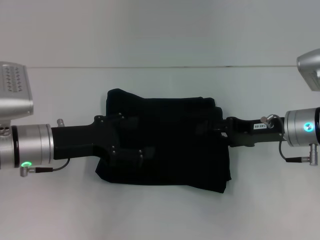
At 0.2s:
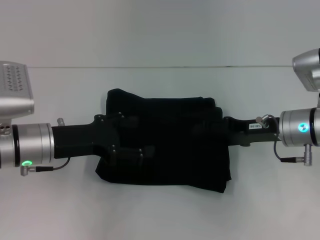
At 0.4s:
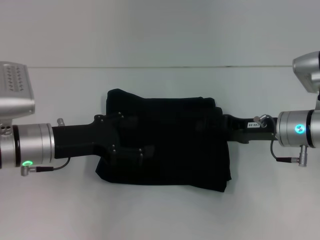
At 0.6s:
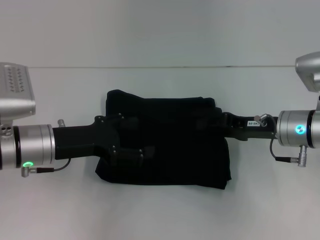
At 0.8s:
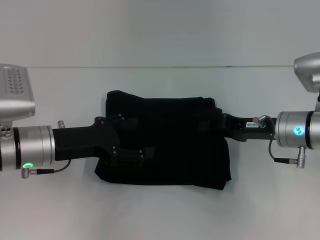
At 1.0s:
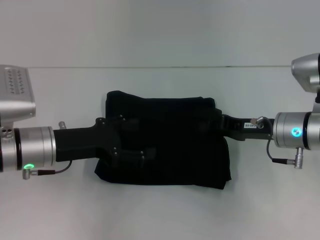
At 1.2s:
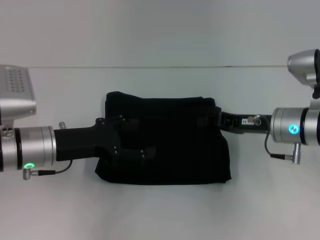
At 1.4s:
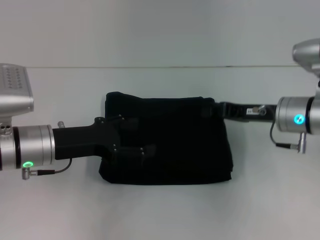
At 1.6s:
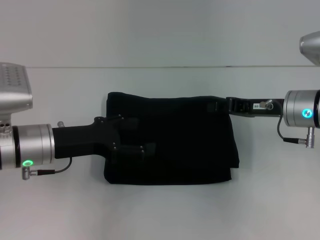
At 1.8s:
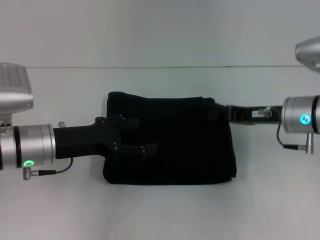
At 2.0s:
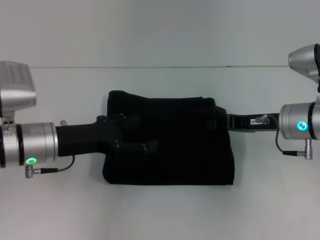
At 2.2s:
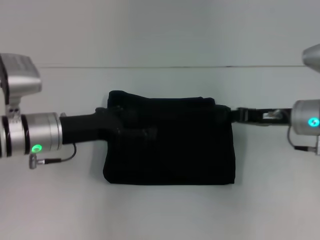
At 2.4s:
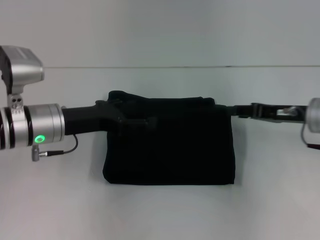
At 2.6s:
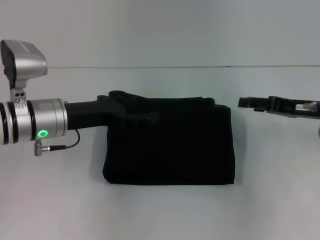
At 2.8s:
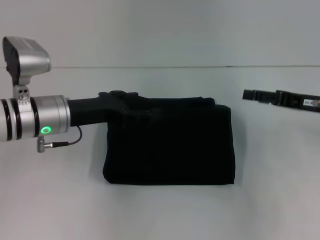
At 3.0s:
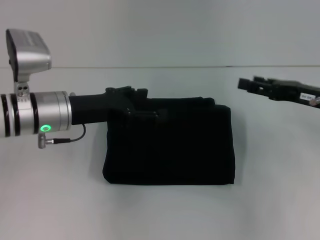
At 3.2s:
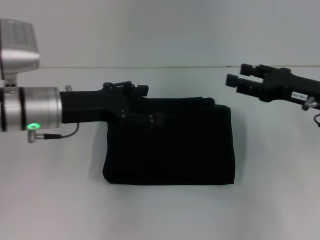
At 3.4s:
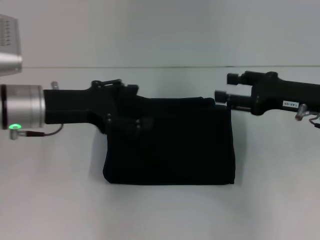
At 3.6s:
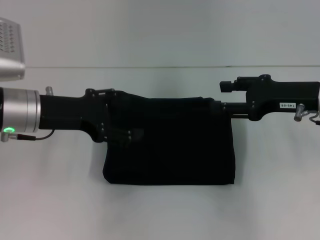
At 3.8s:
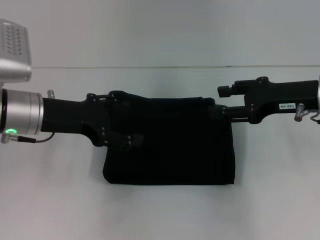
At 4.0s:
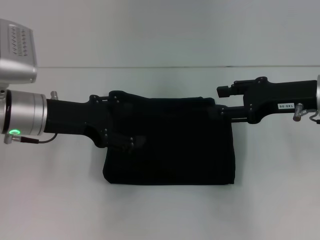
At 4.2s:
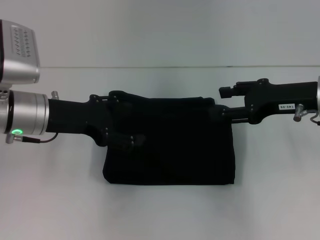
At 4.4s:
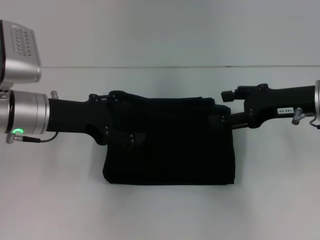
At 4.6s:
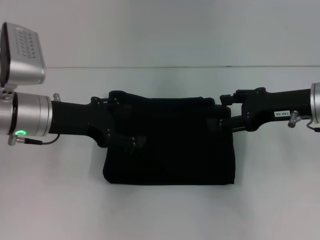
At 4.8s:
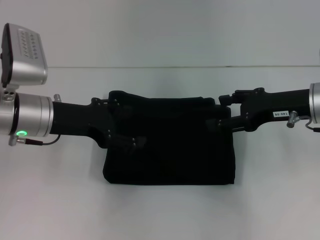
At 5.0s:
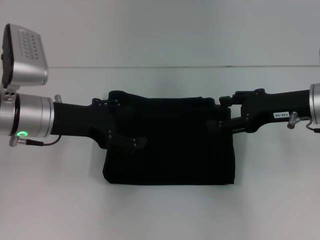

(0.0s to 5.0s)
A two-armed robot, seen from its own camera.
0.0s - 1.6s: The right gripper closes up.
1.6s - 3.4s: The right gripper changes place by approximately 5 cm, and opens up. Meanwhile the left gripper goes approximately 5 cm upward.
3.4s - 5.0s: There are only small adjustments of the grippers.

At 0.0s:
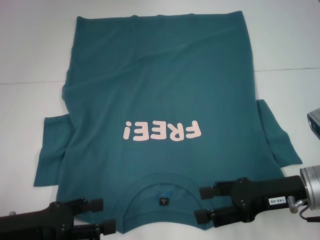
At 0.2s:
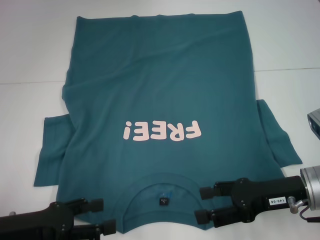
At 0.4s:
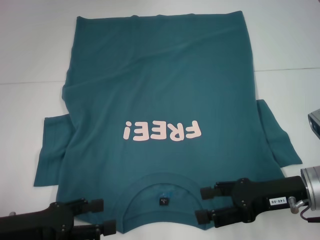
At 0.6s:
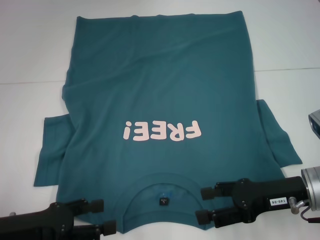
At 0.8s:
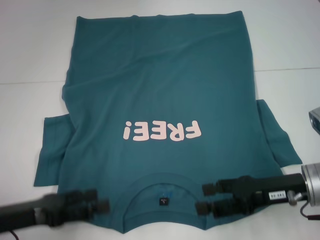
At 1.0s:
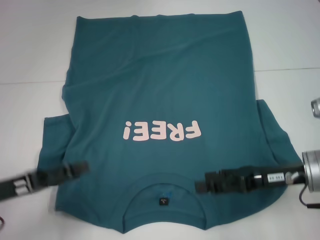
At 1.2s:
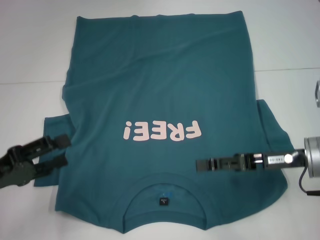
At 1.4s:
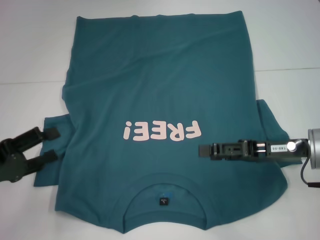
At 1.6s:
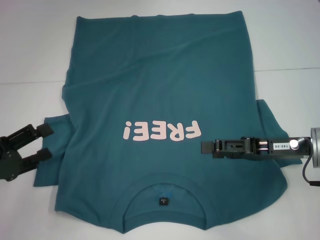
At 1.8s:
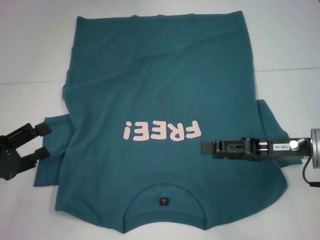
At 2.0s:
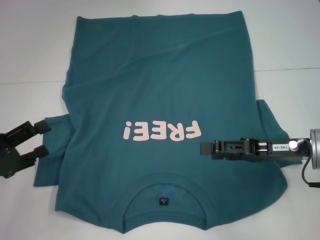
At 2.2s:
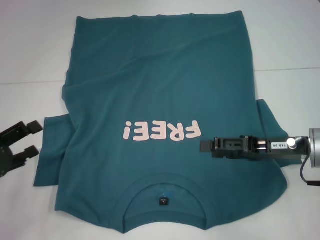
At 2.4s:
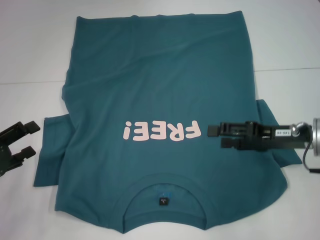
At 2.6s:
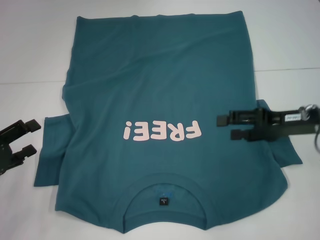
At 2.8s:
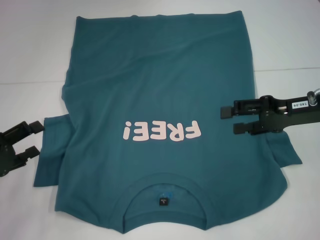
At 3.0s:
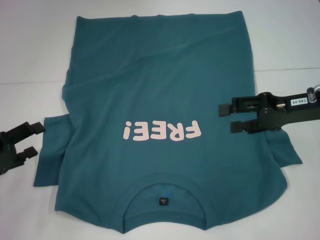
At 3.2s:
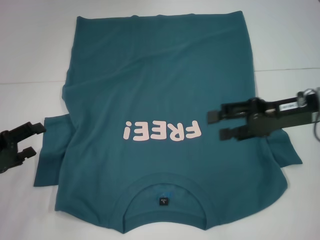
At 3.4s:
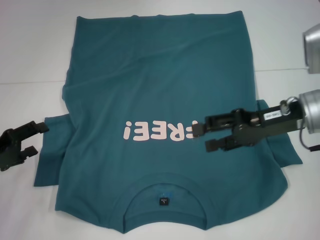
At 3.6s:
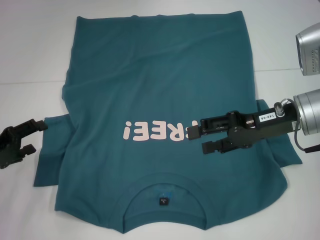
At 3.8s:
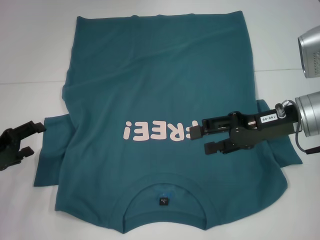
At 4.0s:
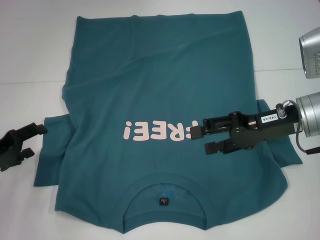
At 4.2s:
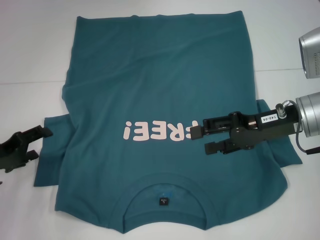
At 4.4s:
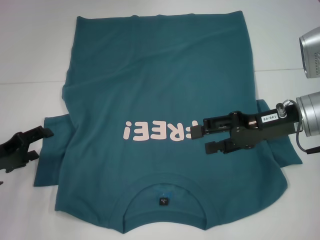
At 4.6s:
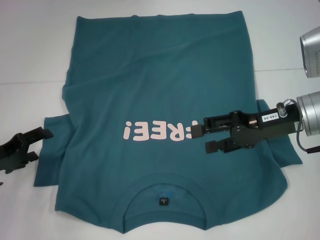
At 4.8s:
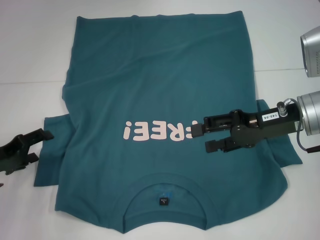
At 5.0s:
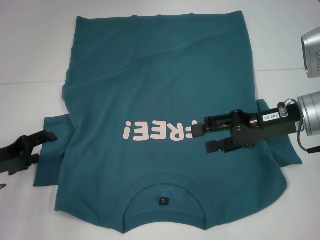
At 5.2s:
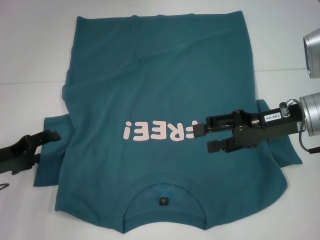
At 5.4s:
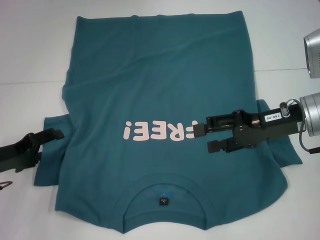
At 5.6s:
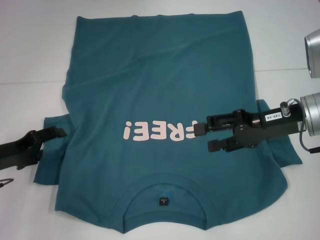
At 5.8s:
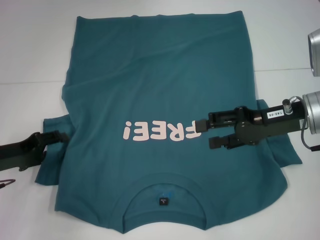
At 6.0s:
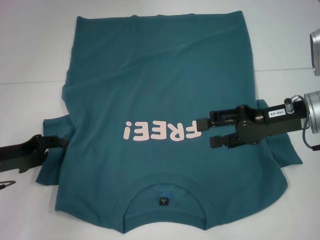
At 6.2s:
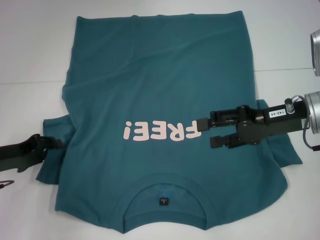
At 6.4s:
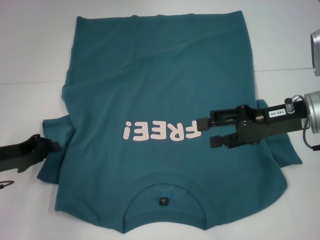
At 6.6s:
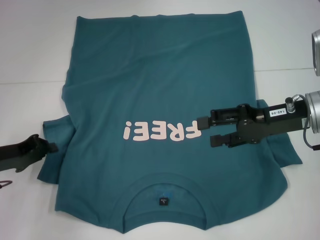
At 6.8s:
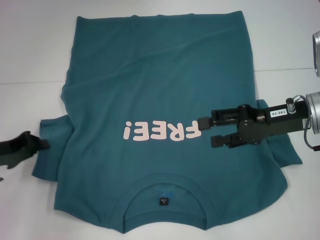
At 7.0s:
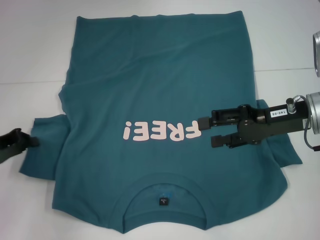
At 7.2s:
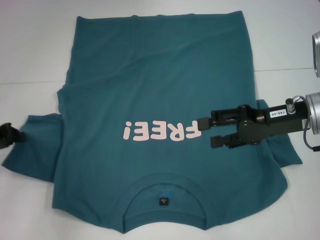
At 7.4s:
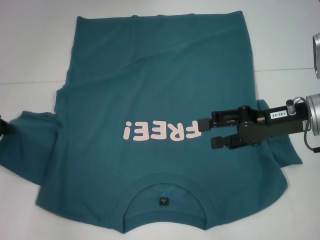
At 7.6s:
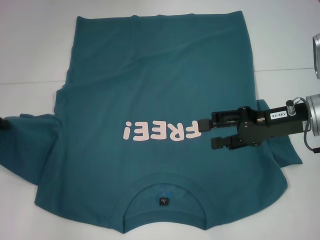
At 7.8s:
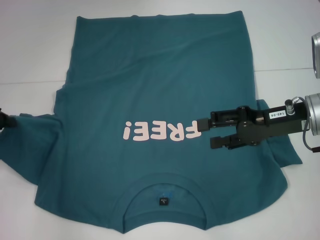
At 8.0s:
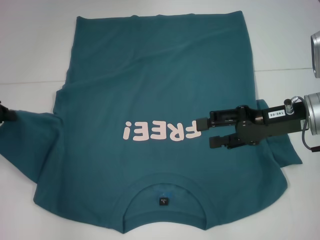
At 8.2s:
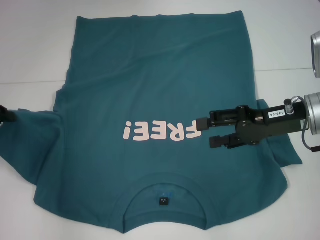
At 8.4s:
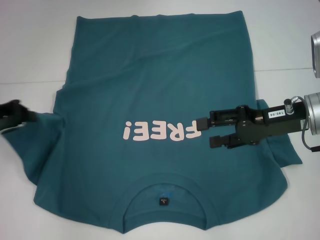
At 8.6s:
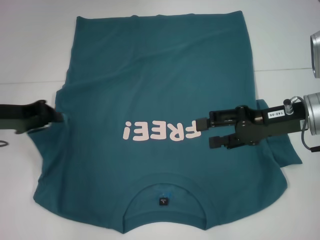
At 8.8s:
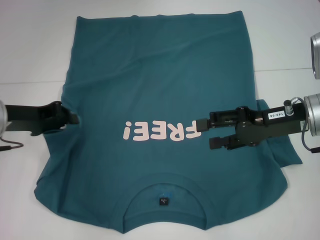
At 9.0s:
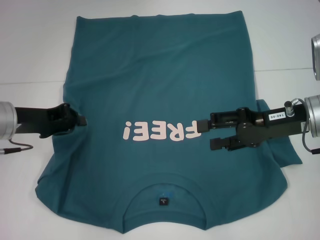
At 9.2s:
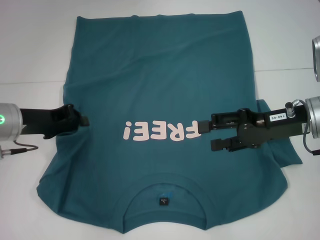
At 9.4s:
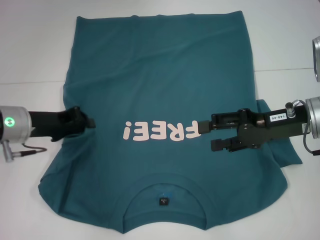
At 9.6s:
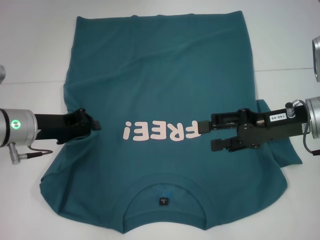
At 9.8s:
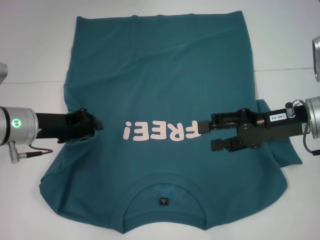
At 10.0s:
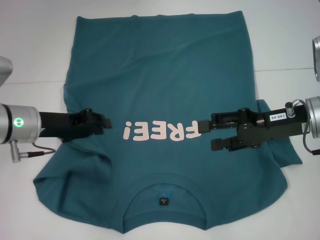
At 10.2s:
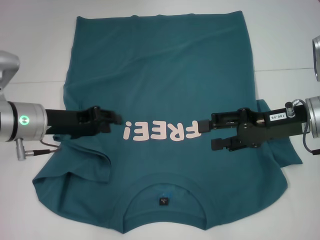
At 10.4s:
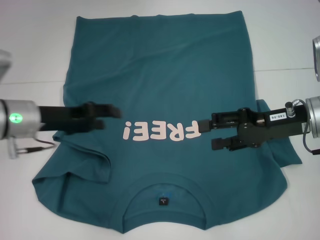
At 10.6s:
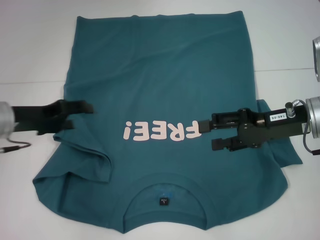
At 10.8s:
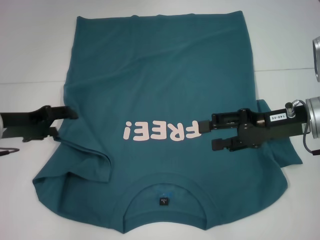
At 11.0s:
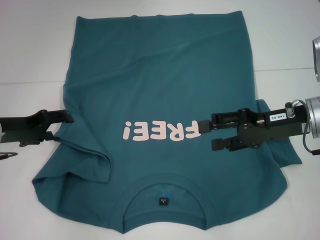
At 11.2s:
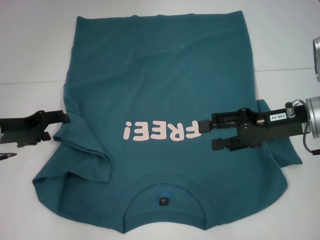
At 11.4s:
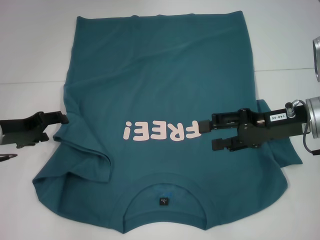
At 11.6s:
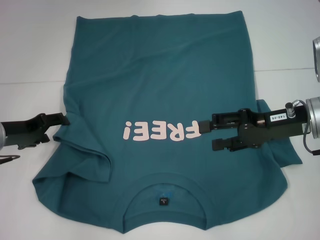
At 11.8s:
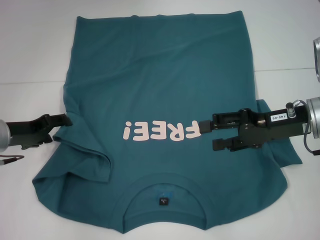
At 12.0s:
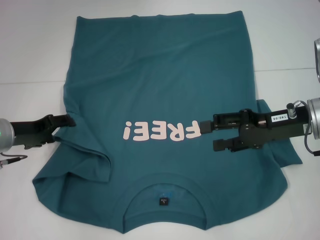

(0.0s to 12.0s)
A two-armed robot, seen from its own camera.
0.0s - 1.6s: The left gripper goes approximately 5 cm to the left.
1.6s - 3.0s: The right gripper moves roughly 5 cm.
3.0s - 4.4s: The grippers move only a little.
4.4s - 6.0s: The grippers stay close to where they were, moving slightly.
6.0s - 7.6s: The left gripper goes roughly 10 cm to the left and upward, and closes its fingers.
7.6s - 9.0s: The left gripper moves to the right, roughly 10 cm.
9.0s - 10.4s: The left gripper opens its fingers.
10.4s - 12.0s: The left gripper moves approximately 5 cm.

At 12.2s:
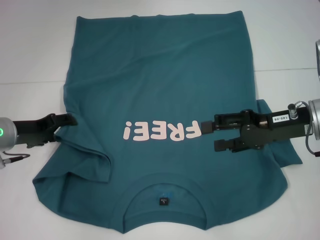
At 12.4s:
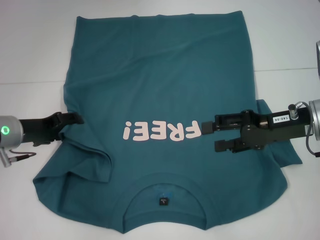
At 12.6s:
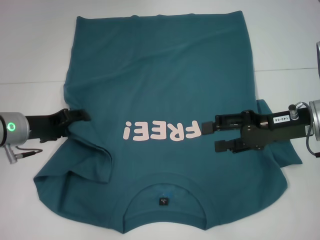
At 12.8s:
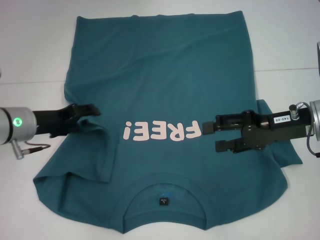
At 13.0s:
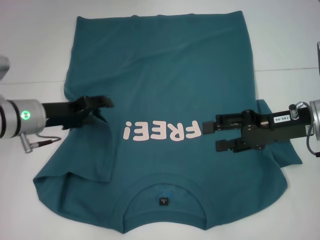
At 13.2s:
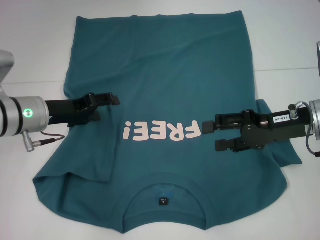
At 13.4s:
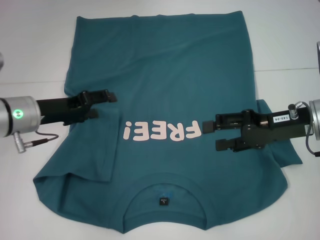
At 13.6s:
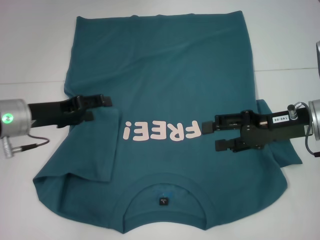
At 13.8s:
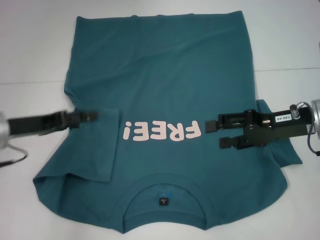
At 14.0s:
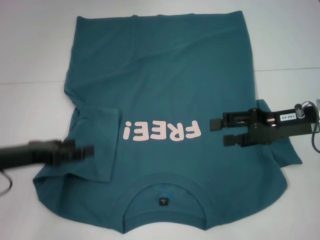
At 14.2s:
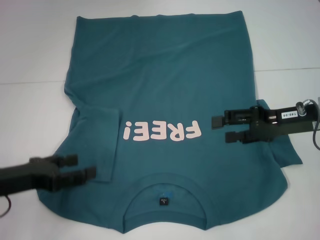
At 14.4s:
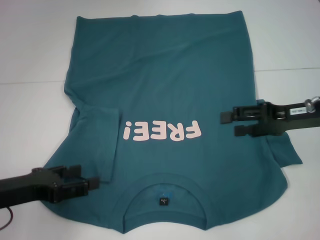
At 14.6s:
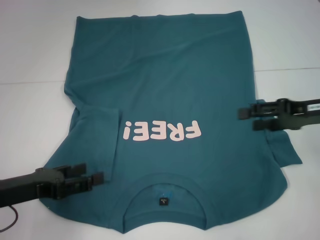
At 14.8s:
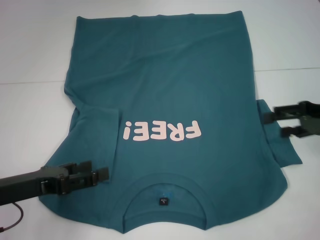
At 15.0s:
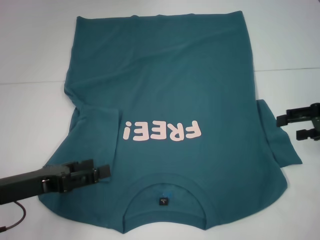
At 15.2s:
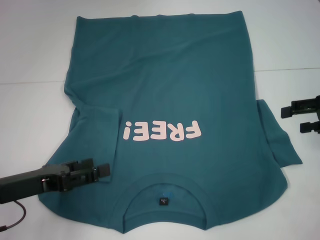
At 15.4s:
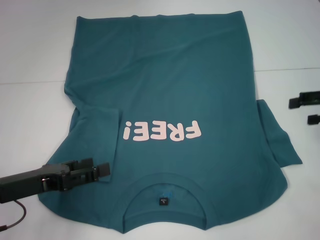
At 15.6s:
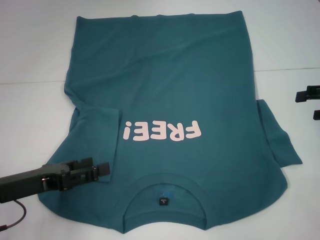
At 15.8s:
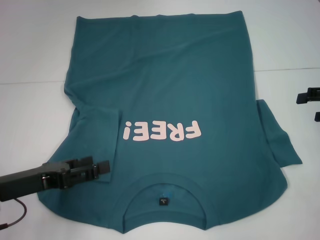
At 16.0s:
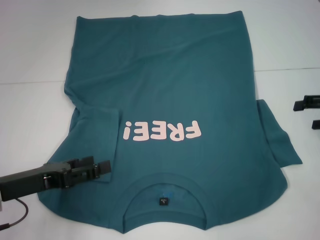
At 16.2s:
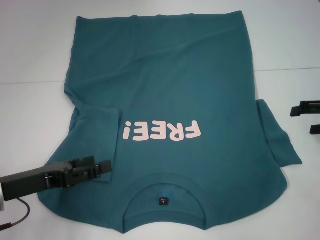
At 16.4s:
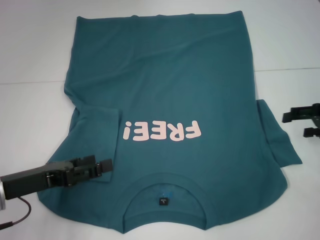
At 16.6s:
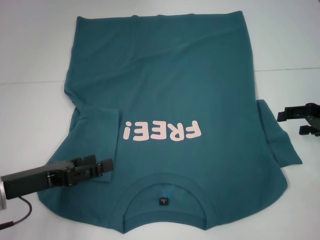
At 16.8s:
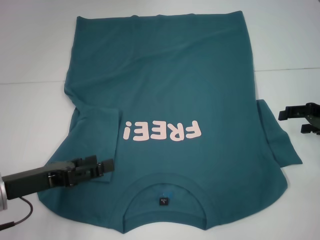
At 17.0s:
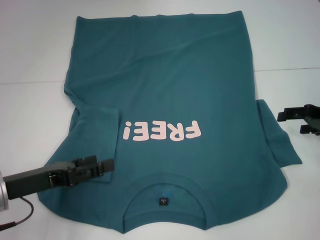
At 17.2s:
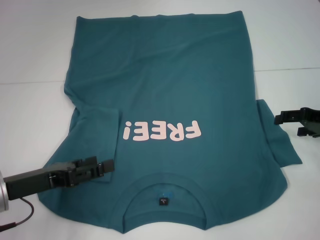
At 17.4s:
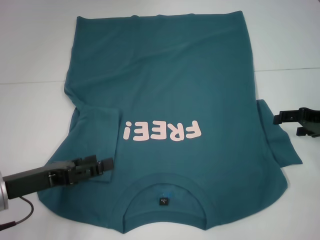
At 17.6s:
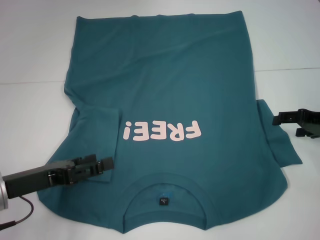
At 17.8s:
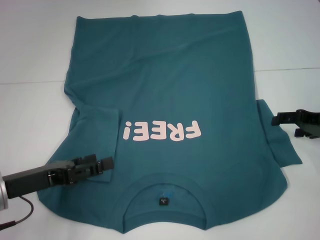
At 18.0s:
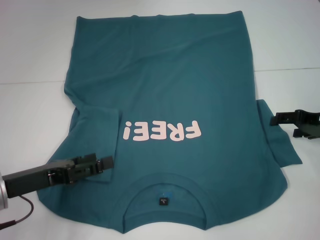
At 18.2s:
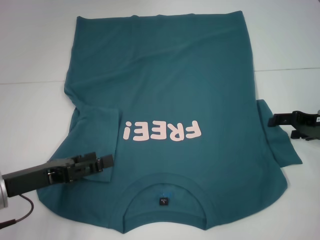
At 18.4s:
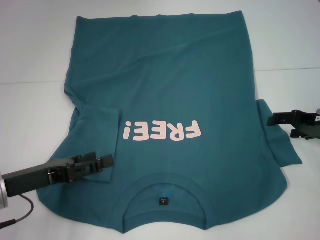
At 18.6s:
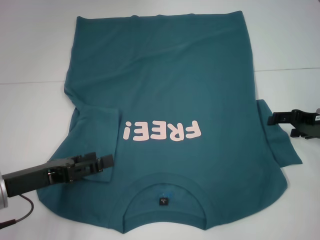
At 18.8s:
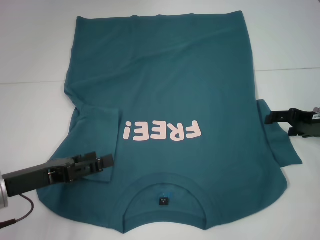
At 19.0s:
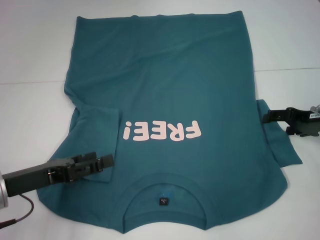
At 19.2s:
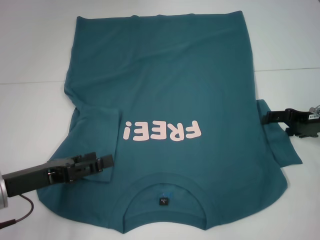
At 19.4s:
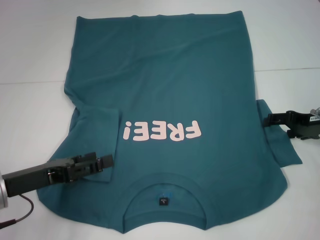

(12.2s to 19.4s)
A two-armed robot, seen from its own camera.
13.6s - 15.0s: The right gripper is displaced to the right by approximately 10 cm. The left gripper heads backward, covering some 10 cm.
15.0s - 16.6s: The grippers move only a little.
16.6s - 19.4s: The grippers move only a little.
